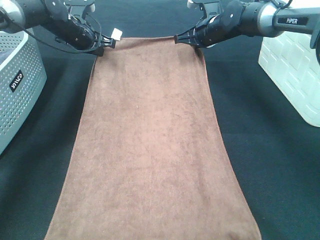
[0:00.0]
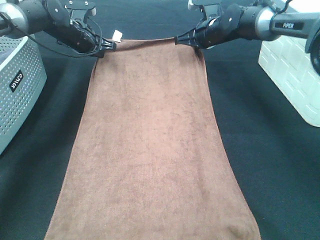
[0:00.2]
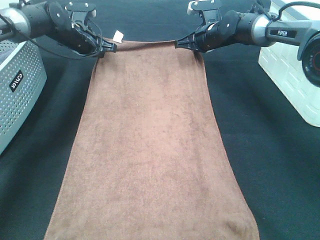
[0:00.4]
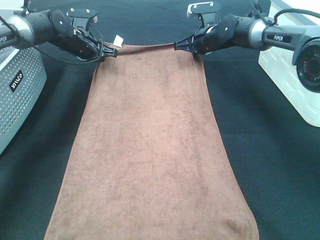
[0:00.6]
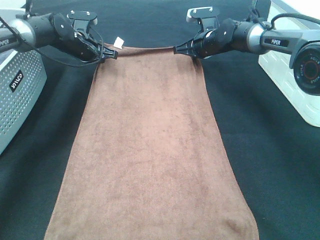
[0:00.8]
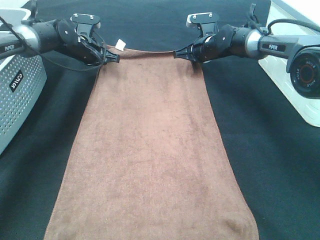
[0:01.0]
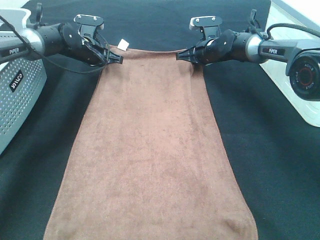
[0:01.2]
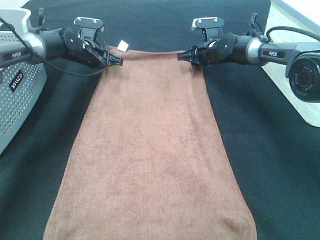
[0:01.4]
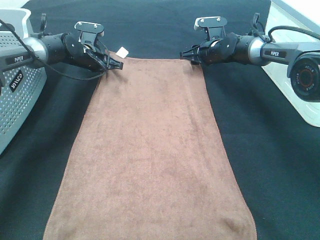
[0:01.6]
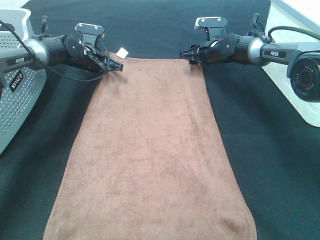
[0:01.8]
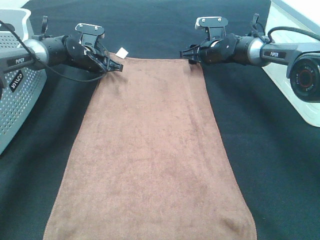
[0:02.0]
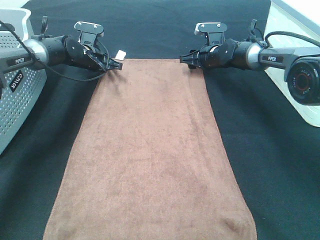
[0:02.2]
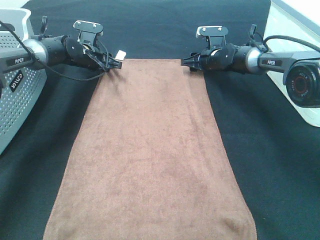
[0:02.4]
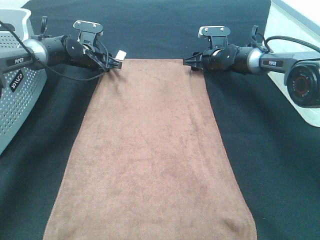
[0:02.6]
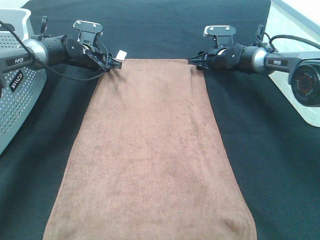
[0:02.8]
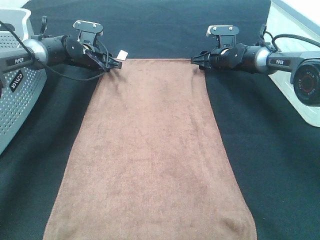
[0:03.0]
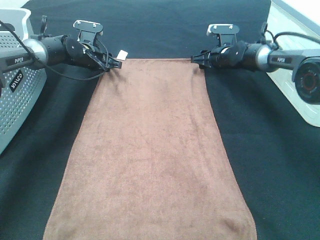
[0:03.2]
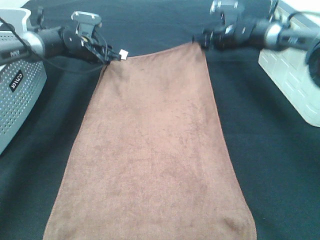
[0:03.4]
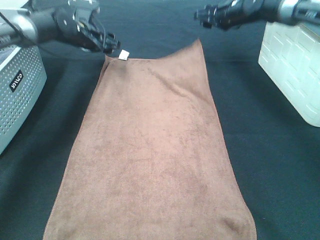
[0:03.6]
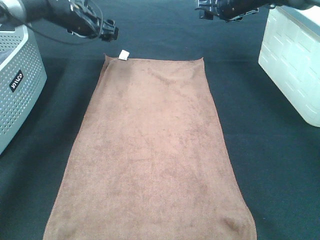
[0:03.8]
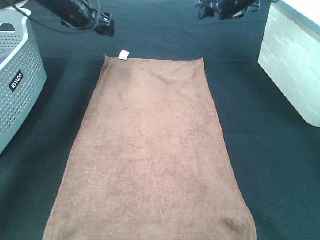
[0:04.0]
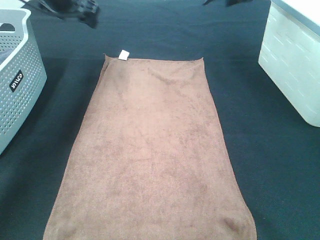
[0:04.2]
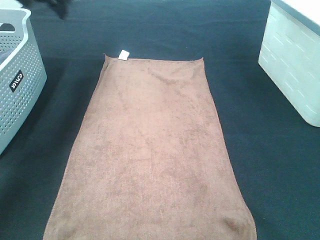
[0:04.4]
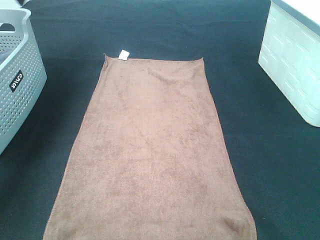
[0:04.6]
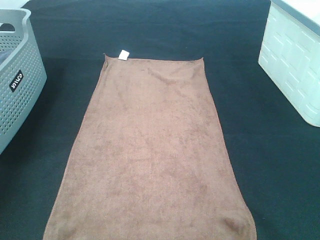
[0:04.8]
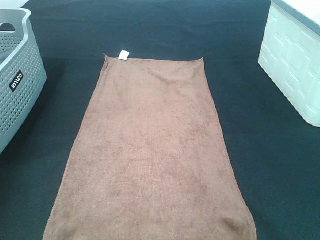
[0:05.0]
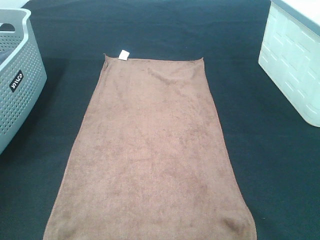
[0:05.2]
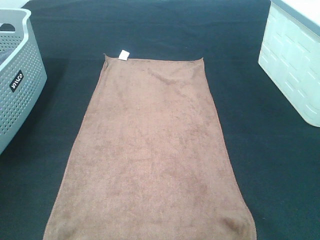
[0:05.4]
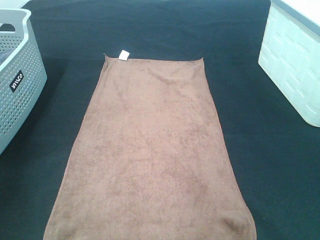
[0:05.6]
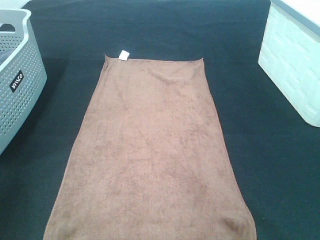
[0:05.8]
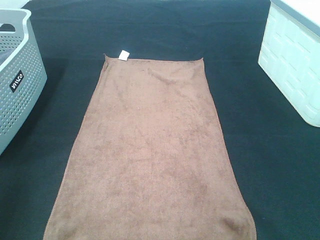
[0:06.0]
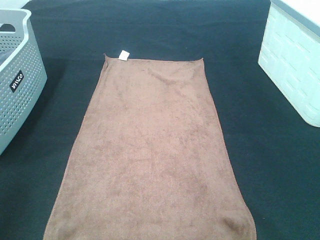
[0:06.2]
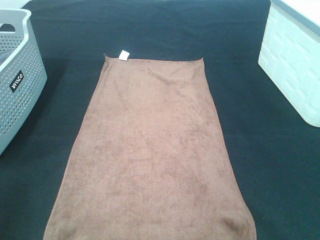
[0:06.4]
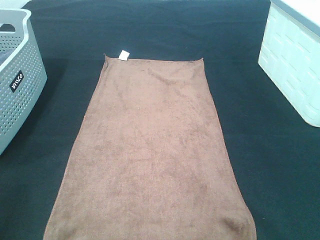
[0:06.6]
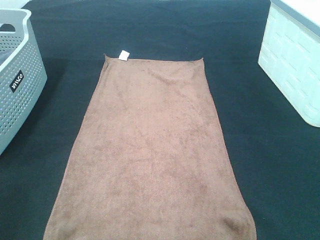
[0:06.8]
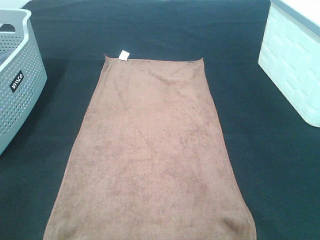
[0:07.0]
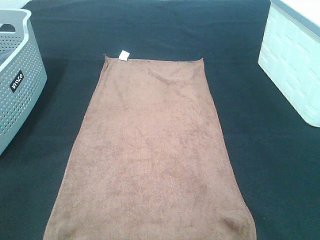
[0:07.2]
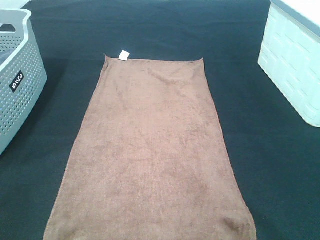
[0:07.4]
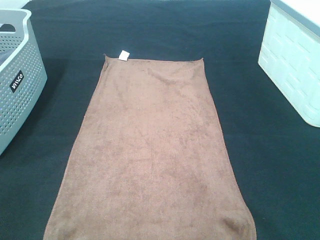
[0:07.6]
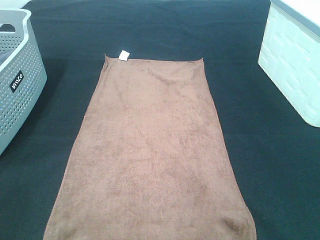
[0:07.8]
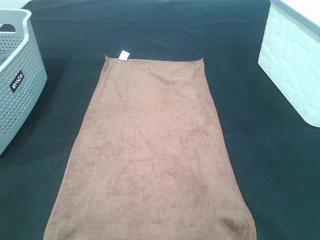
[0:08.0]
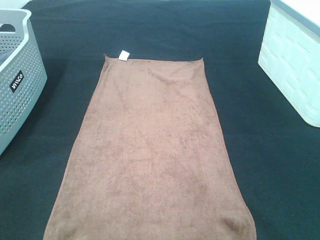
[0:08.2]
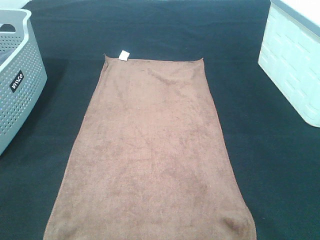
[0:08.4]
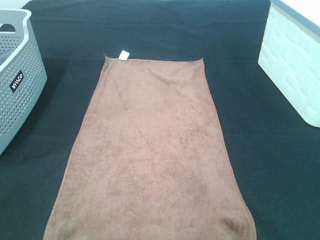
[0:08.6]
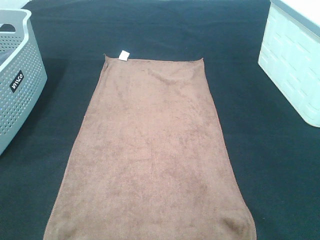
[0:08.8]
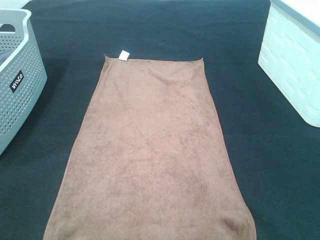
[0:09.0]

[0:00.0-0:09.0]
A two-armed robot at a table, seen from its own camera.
Task of the whole recording: Remove the towel and place it.
0.0 to 1.6 s: The two grippers go roughly 5 cm downward. The right gripper opens its fingers.
1.6 to 3.0 s: The left gripper opens up.
3.0 to 4.4 s: The two grippers go some 25 cm upward.
4.4 to 6.0 s: The grippers both shift backward by roughly 40 cm.
7.6 to 9.0 s: The two grippers keep their place.

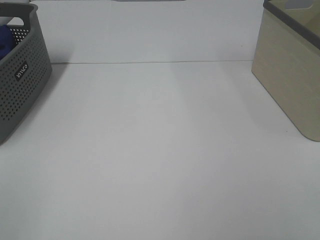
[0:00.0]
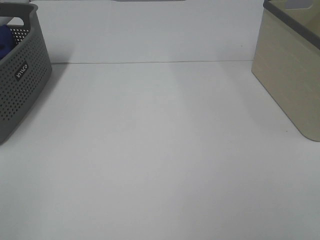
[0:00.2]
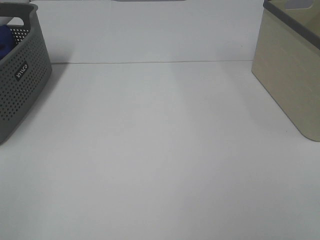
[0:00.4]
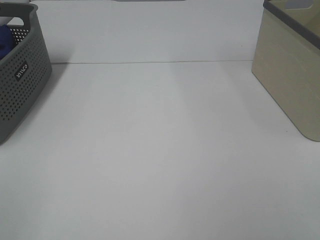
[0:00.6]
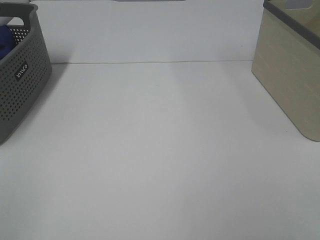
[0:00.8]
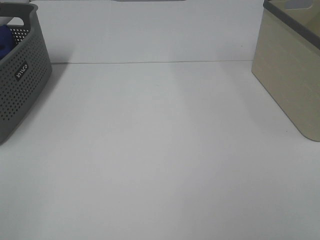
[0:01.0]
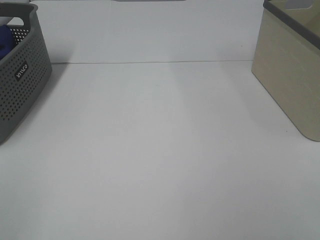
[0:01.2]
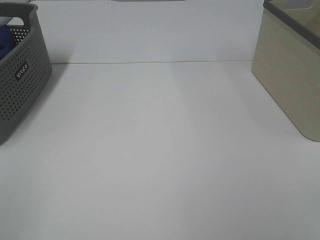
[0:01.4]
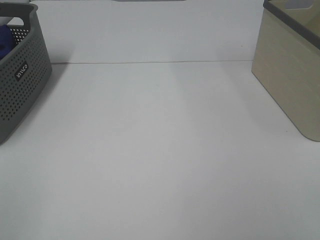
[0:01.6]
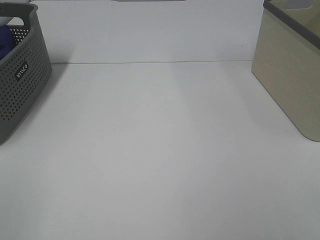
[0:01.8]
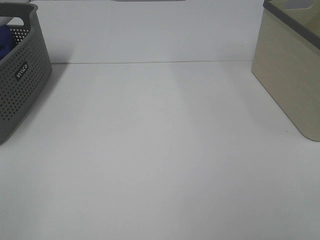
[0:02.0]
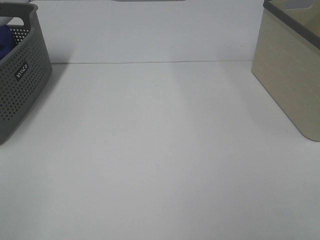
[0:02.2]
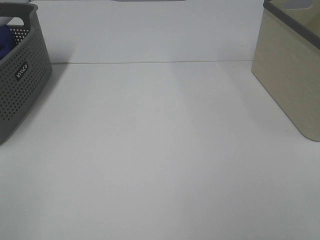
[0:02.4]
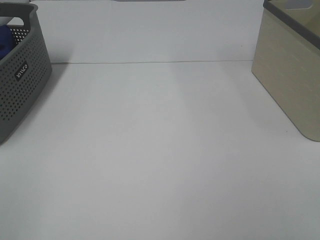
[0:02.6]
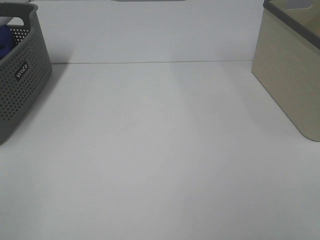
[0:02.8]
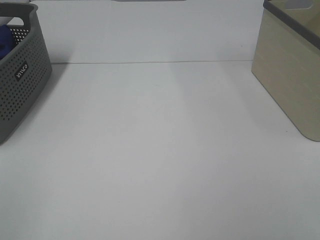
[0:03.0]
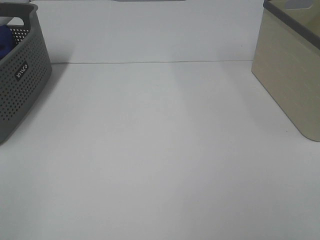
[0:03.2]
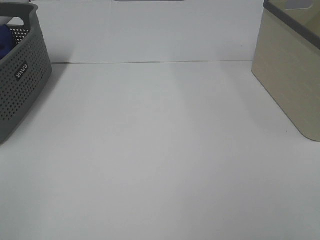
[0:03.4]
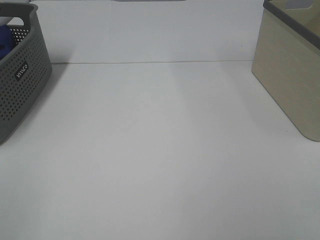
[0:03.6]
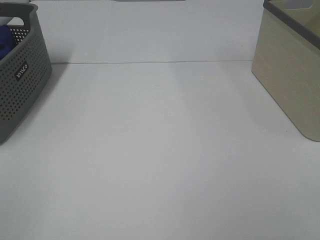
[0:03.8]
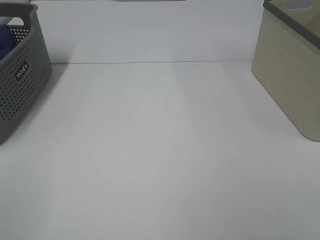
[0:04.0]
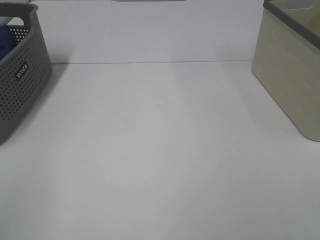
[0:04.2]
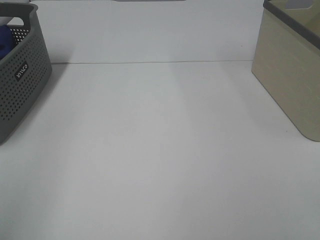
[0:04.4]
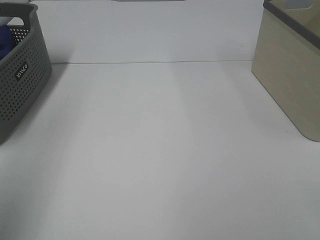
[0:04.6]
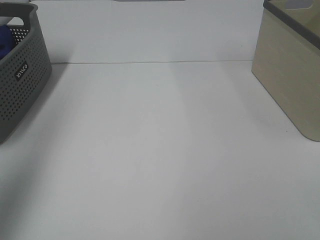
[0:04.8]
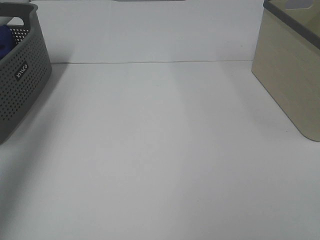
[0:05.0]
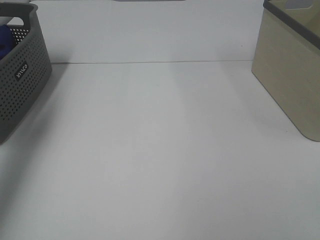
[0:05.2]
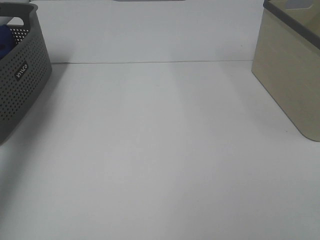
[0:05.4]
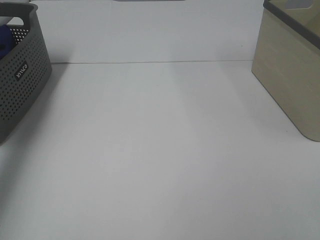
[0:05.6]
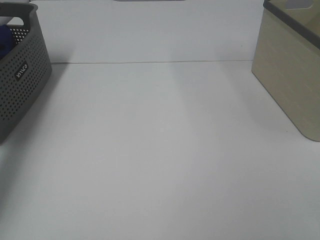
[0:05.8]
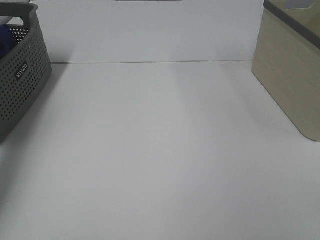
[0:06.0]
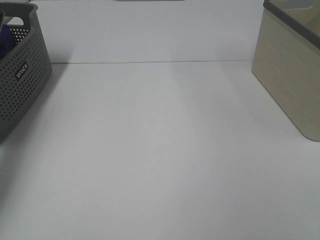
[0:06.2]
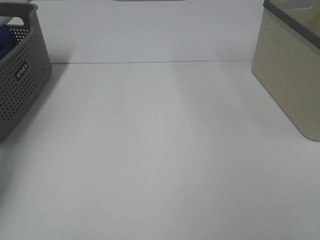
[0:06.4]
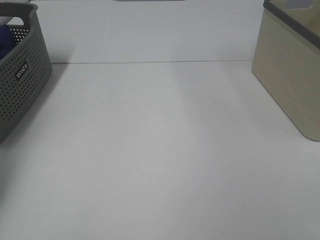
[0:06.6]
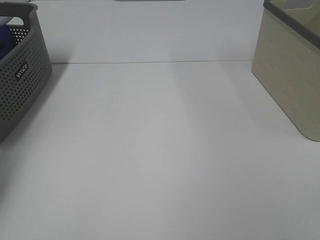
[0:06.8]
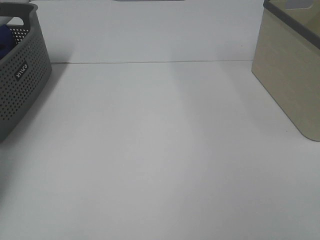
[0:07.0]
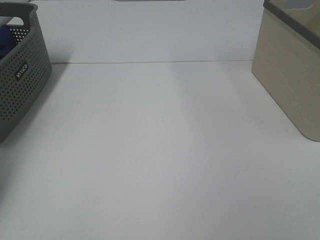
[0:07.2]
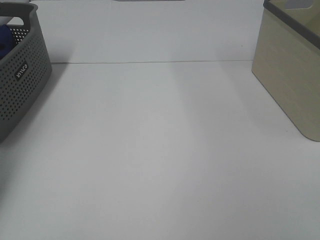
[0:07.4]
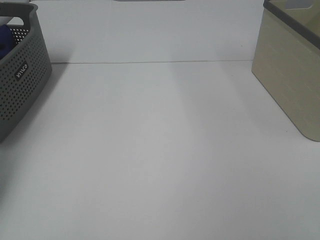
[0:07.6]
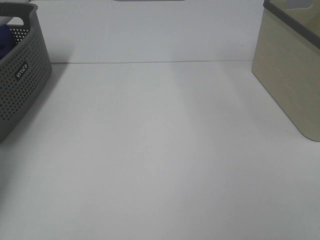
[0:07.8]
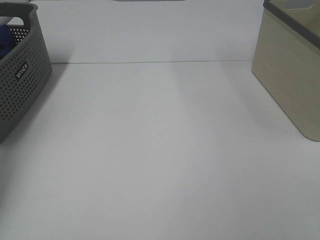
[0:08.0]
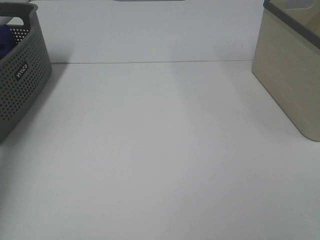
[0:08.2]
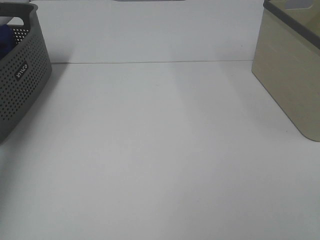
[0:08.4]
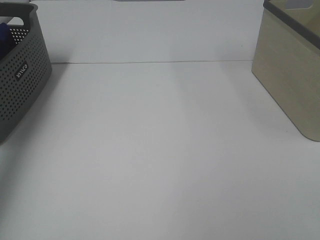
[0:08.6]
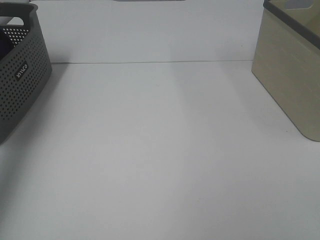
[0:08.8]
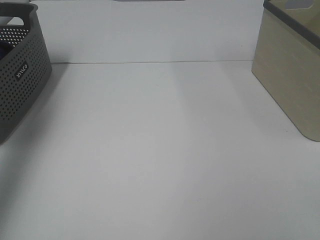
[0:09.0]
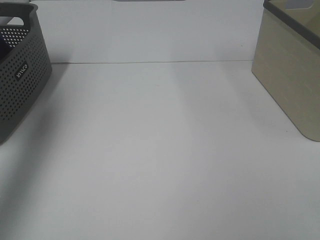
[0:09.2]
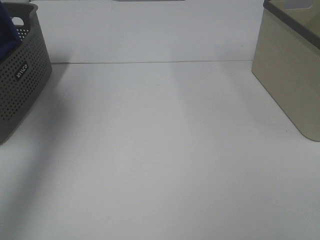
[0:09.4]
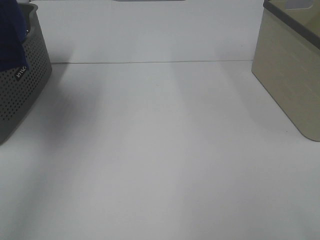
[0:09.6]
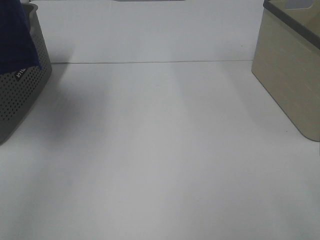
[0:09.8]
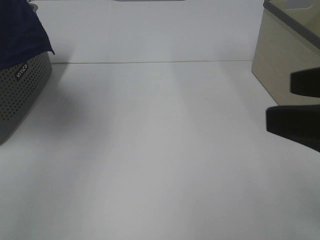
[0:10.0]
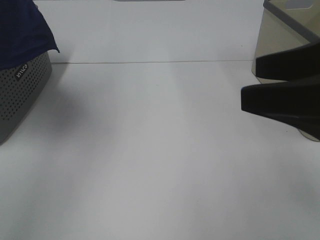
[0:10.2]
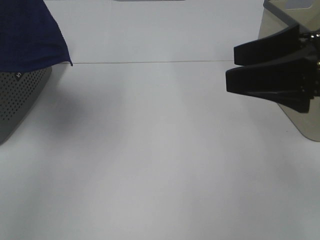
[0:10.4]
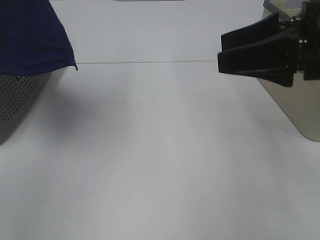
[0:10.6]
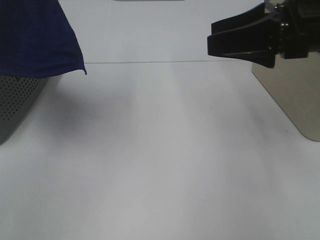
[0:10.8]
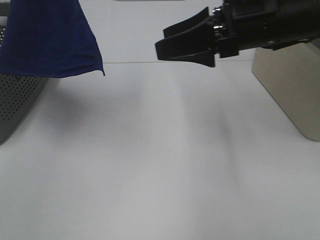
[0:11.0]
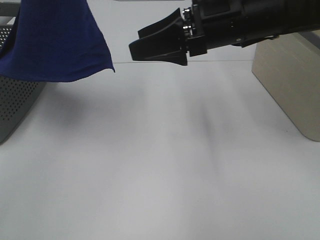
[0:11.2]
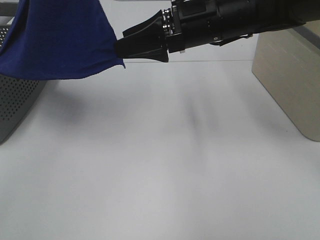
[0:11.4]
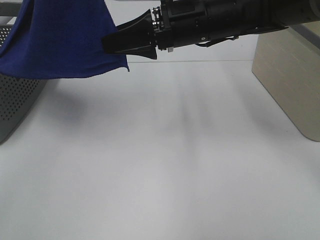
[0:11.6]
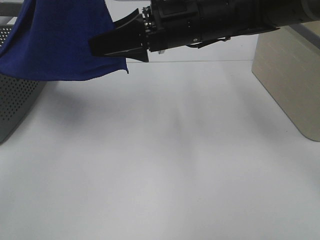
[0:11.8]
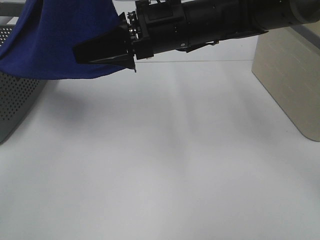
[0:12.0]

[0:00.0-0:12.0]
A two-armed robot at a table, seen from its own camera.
Task of the whole recording: Remove the towel and place it.
0.0 to 3.0 s: Both grippers stay about where they are.
4.4 to 6.0 s: The left gripper is displaced forward by roughly 40 cm.
7.6 to 9.0 s: The left gripper is displaced upward and backward by some 35 cm.
9.0 to 10.4 s: The left gripper heads to the right, covering some 15 cm. The right gripper is displaced forward by about 20 cm.
10.4 to 12.0 s: The left gripper moves to the right, about 5 cm. The right gripper goes approximately 20 cm to the left and forward.

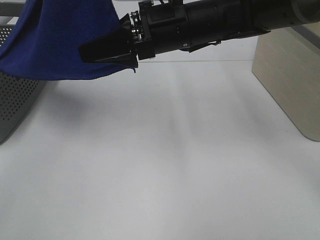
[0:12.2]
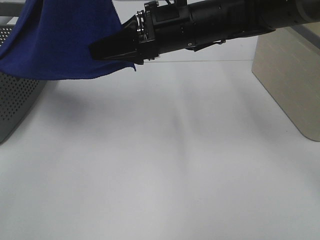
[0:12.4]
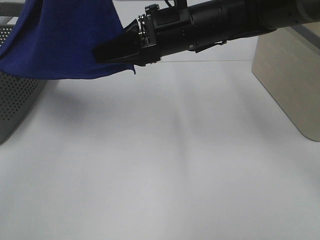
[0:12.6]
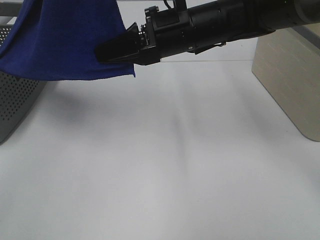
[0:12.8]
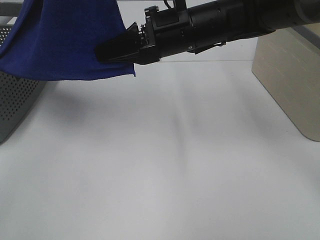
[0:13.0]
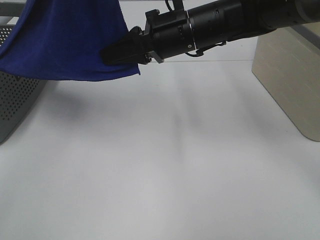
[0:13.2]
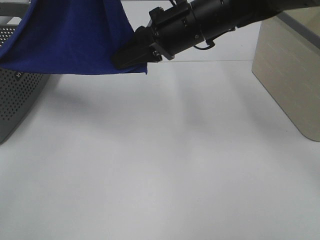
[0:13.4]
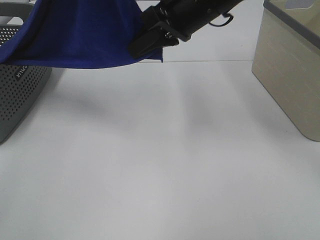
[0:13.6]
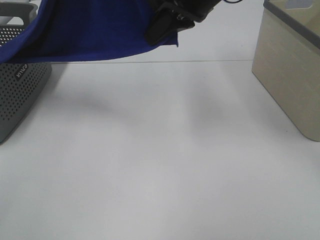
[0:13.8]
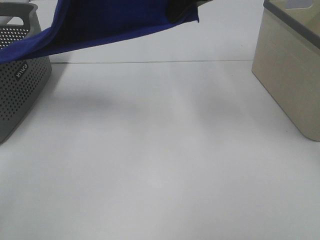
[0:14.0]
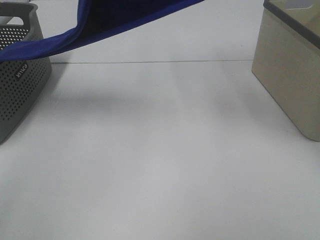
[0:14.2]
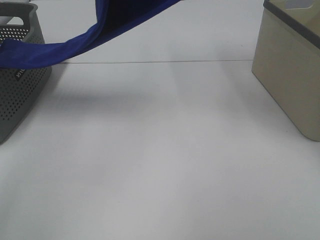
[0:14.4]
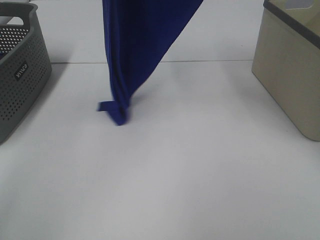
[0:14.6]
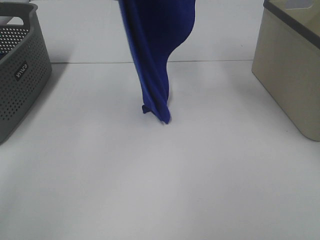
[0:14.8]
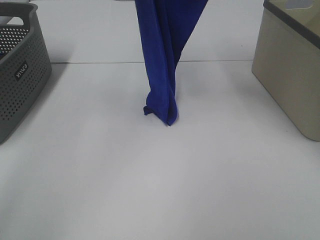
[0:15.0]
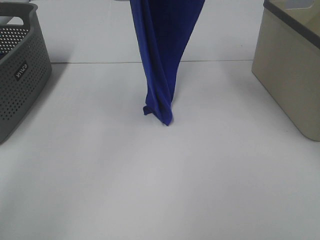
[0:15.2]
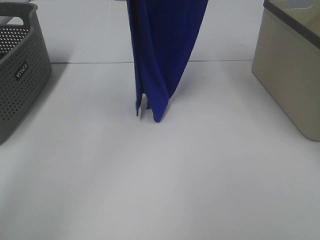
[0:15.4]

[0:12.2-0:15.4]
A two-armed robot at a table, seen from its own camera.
Task of the whole recording: Remove the towel and place it.
12.2 to 13.8 s: The right gripper moves upward, about 10 cm, and closes.
13.8 to 15.4 s: The left gripper is displaced forward by some 10 cm. The right gripper is displaced upward by about 15 cm.
